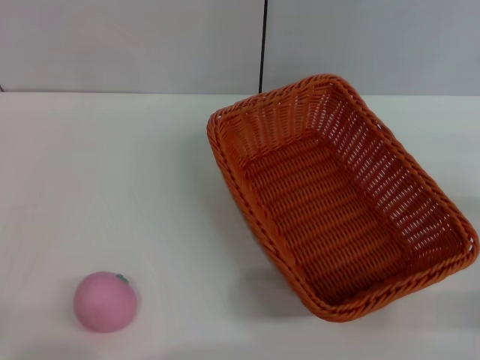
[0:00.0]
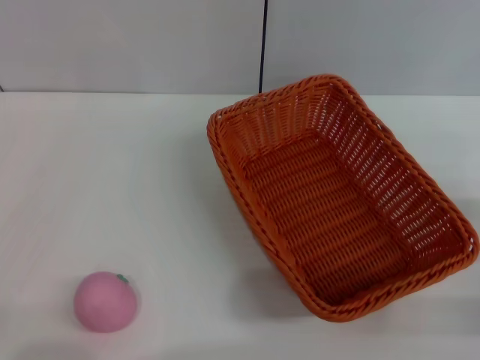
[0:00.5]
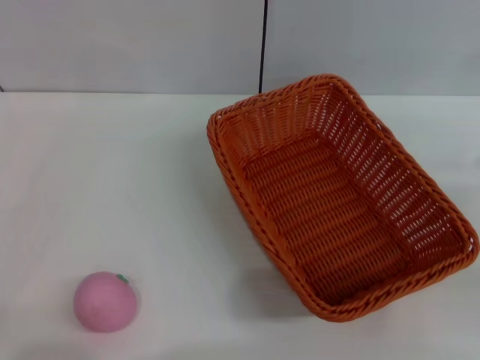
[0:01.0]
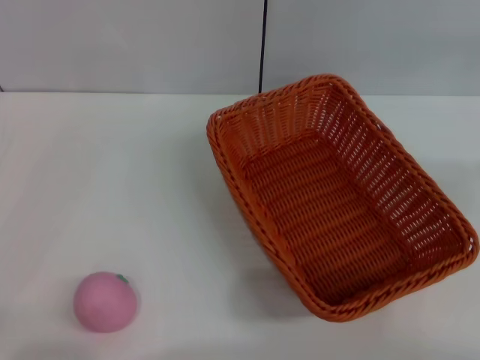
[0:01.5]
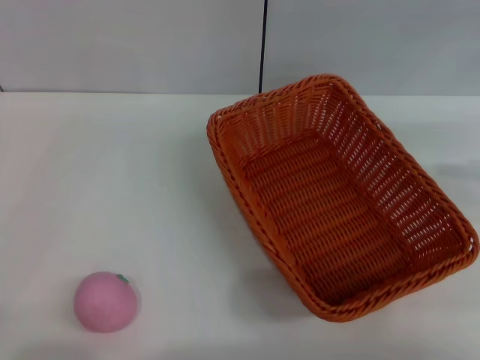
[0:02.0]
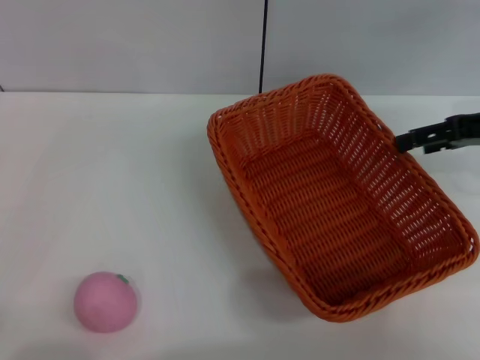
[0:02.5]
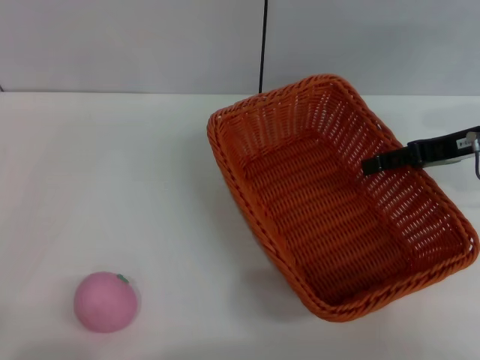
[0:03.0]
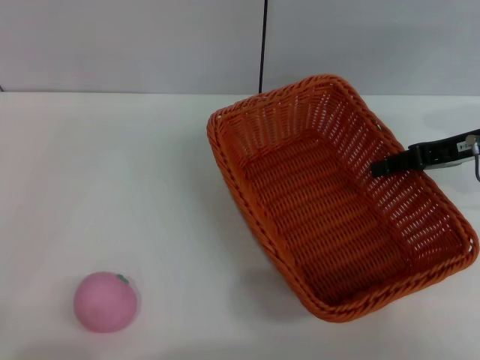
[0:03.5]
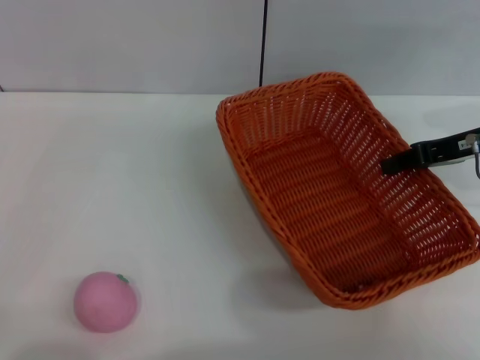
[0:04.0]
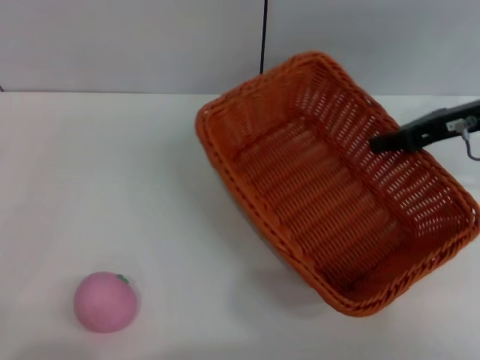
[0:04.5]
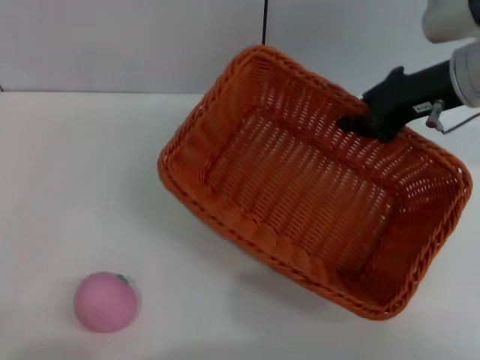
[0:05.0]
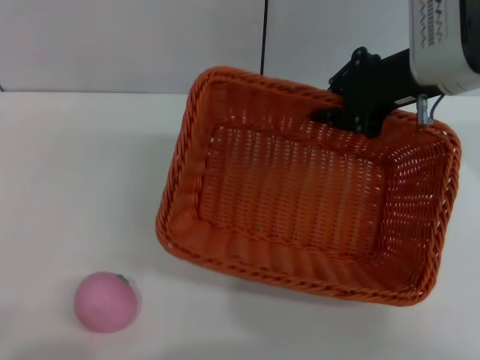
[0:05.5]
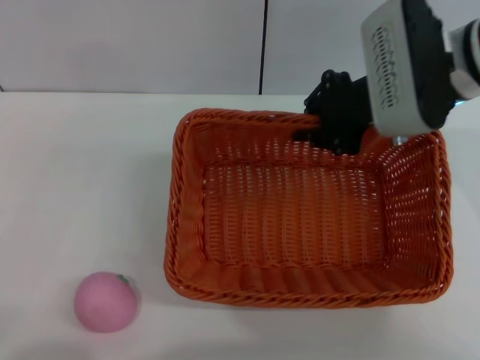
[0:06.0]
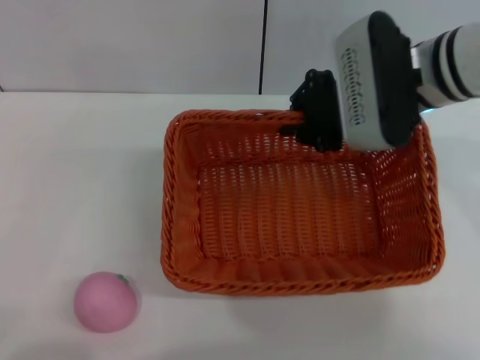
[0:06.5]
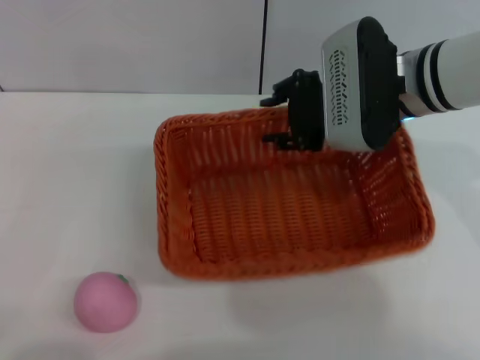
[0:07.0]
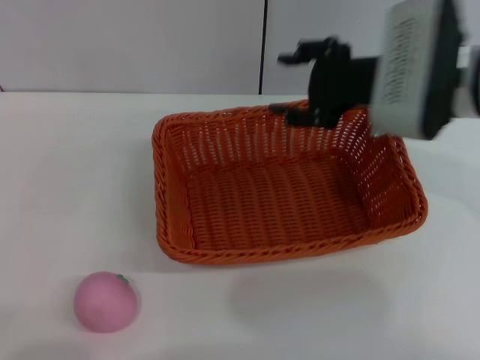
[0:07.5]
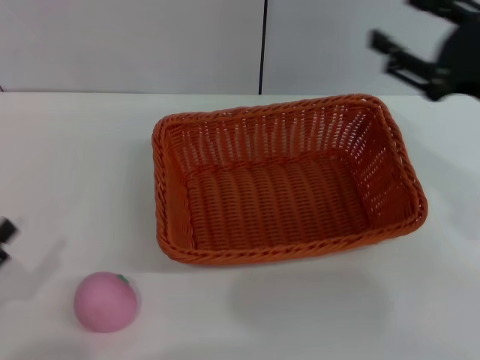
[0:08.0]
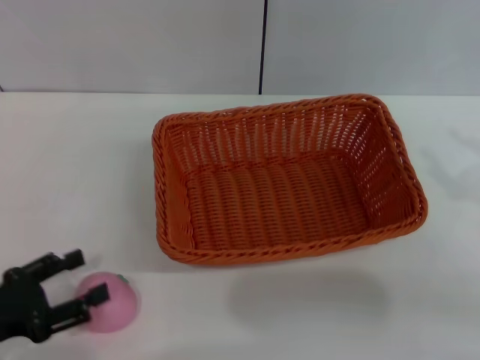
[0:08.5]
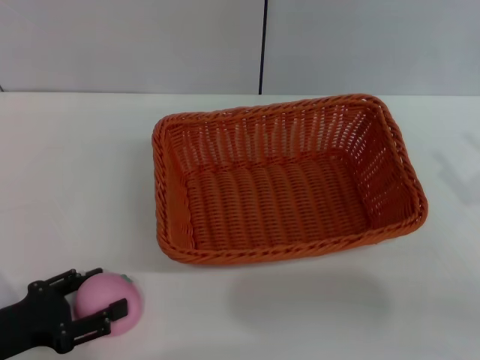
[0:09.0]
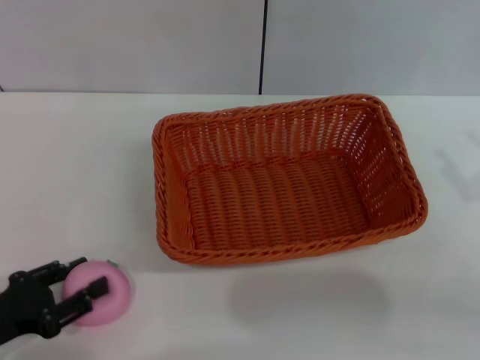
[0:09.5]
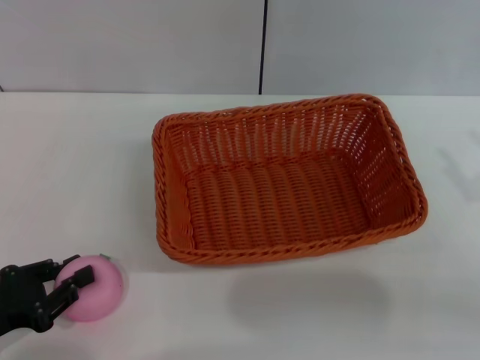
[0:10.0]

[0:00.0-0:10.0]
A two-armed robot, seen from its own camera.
Step, 0:00.0 to 0:04.5: Pick up the light basket with the right gripper.
Step, 0:05.0 to 0:07.0: Place the light basket in the center of view with the right gripper.
0:02.0 to 0:04.0: The right gripper shifts some 15 cm to the left and downward, and closes.
0:04.0 to 0:06.0: The left gripper shifts some 5 cm backward. Meanwhile the right gripper moves to the left and upward, approximately 15 cm.
0:06.0 to 0:08.0: The right gripper travels to the right and backward by roughly 15 cm, and opens its fingers.
0:08.0 to 0:10.0: The right gripper moves to the right, backward and downward, some 10 cm, while the left gripper closes its fingers.

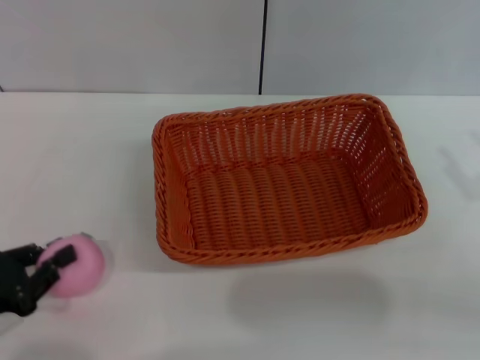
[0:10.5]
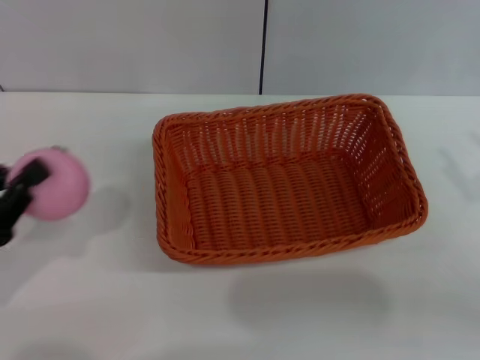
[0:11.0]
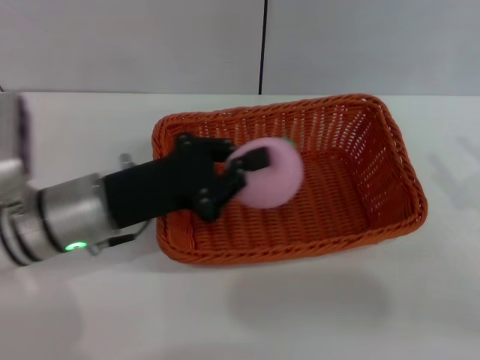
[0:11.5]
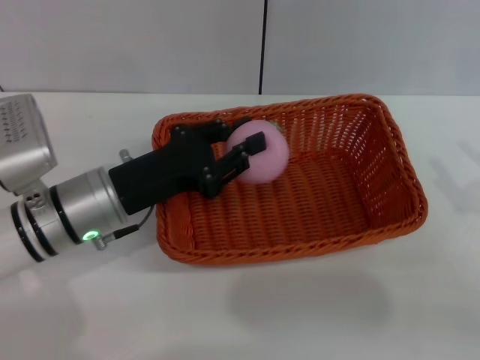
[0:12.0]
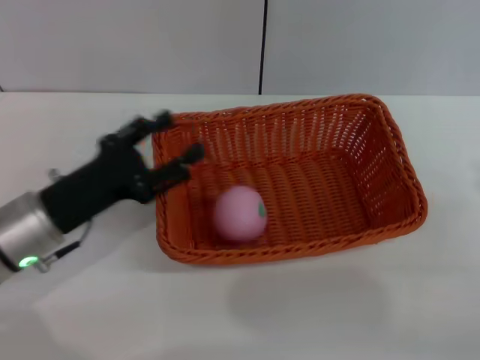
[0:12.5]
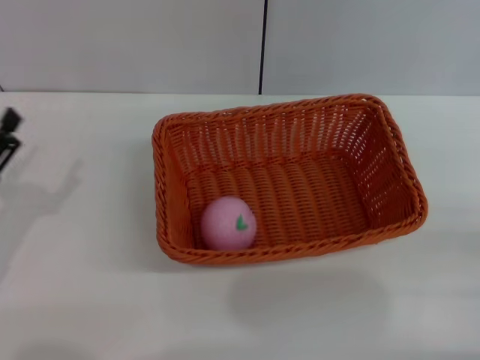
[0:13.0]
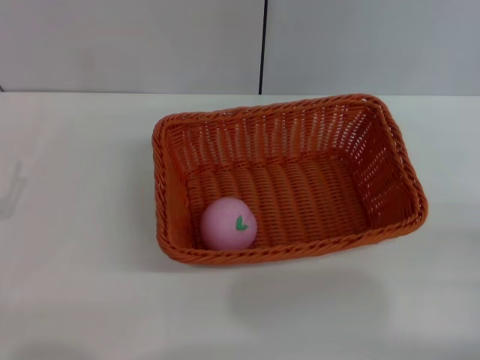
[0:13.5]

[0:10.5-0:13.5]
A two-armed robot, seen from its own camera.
Step, 0:11.5 to 0:12.5: Place the peach into the basket with the left gripper.
0:10.5 to 0:12.0: The left gripper travels to the right and forward by roughly 20 cm.
0:12.0 to 0:13.5: The left gripper travels to the left and backward by some 20 cm, and opens up; the right gripper goes about 5 cm backward and downward.
